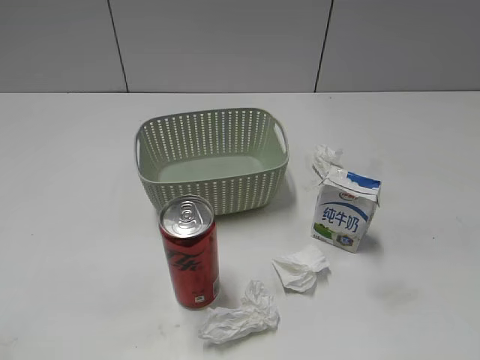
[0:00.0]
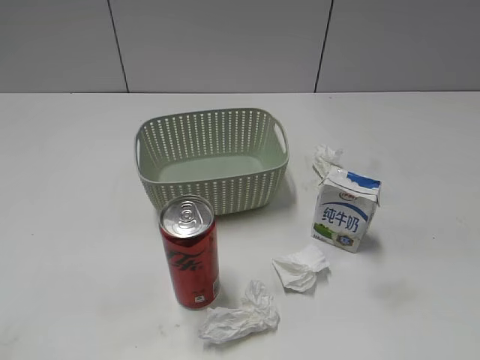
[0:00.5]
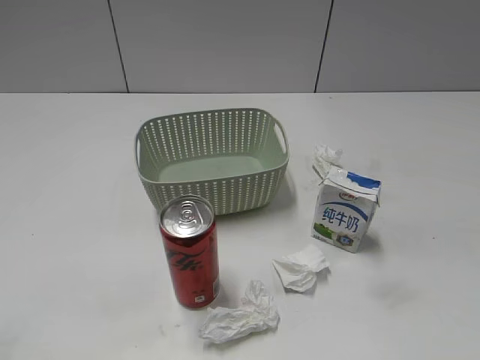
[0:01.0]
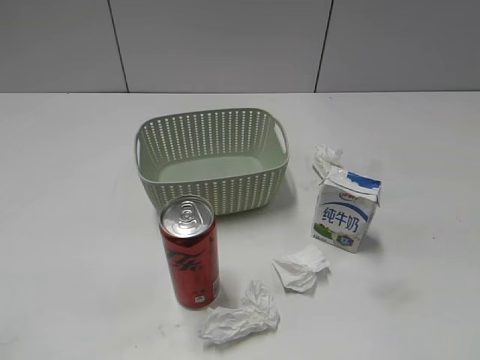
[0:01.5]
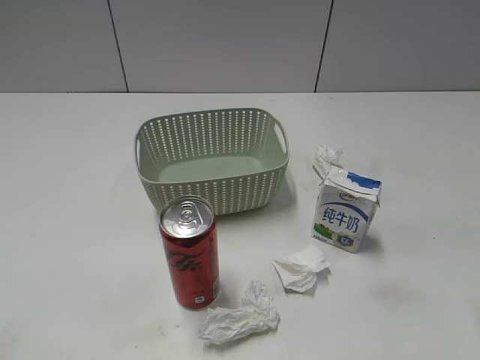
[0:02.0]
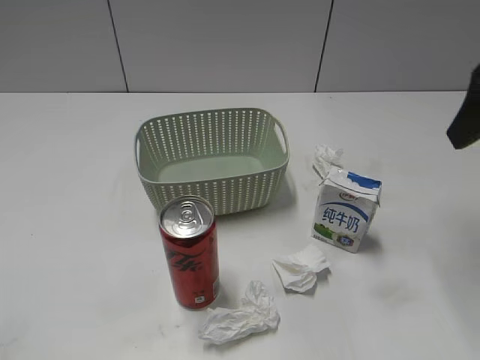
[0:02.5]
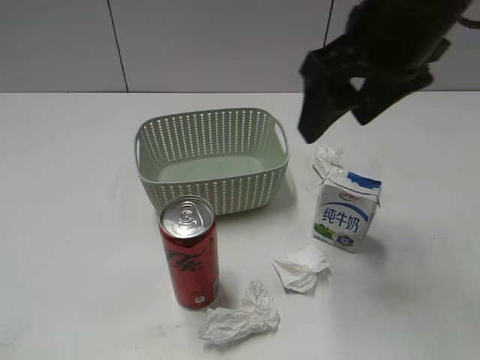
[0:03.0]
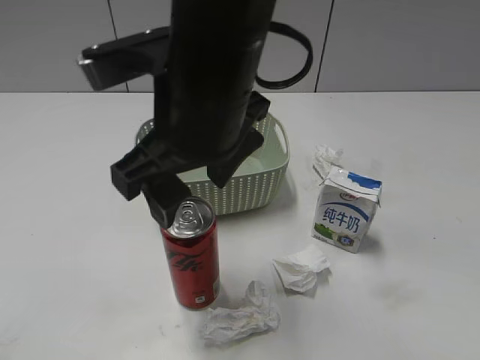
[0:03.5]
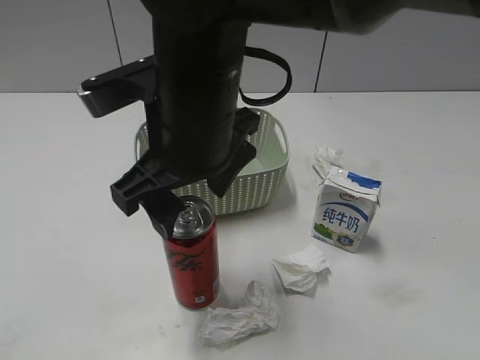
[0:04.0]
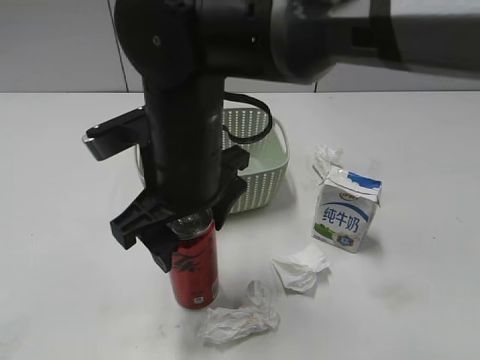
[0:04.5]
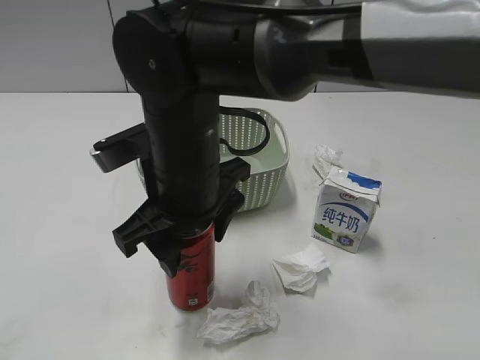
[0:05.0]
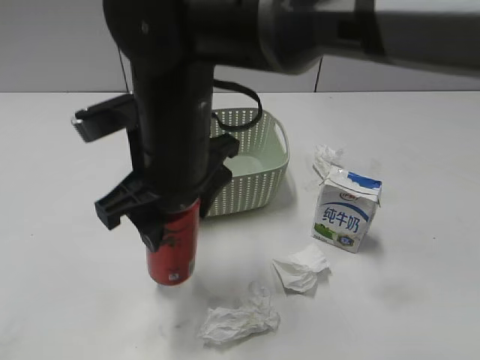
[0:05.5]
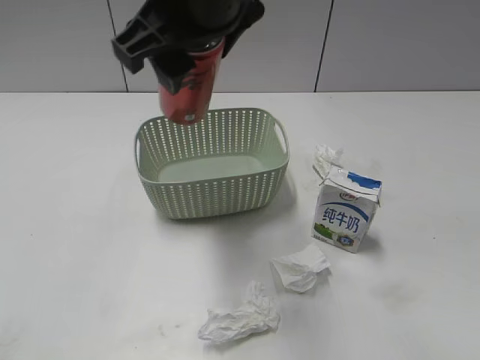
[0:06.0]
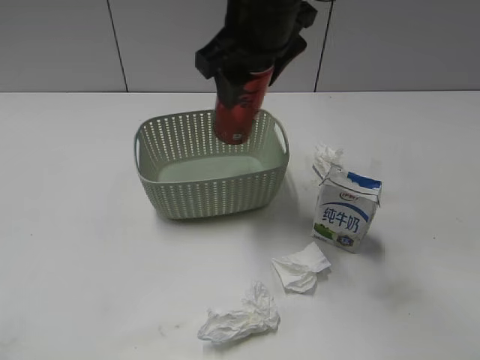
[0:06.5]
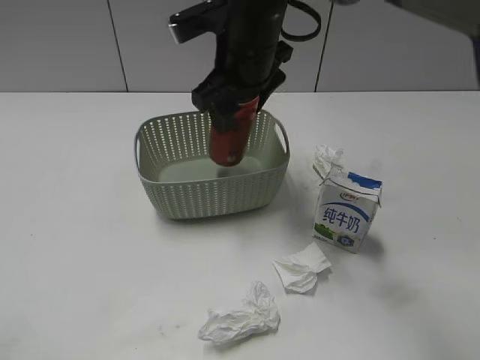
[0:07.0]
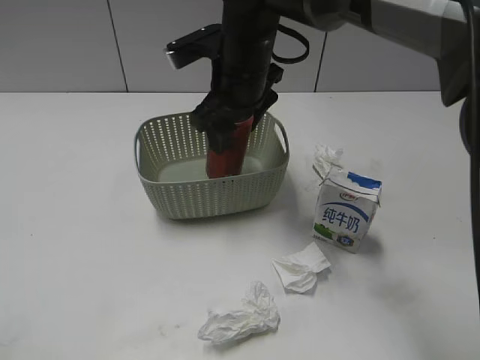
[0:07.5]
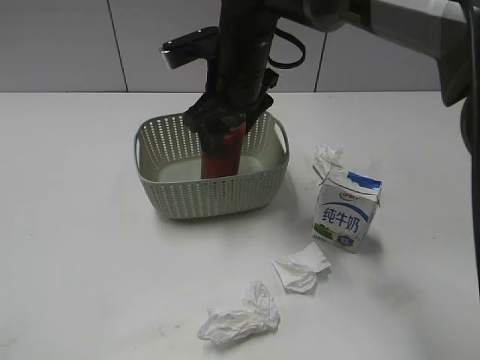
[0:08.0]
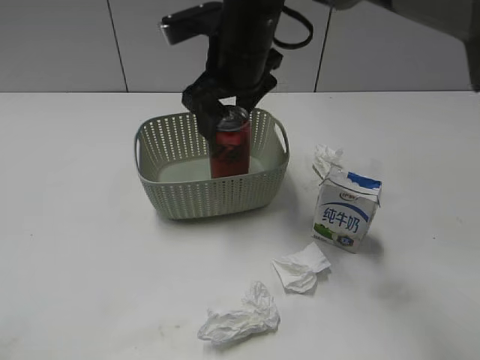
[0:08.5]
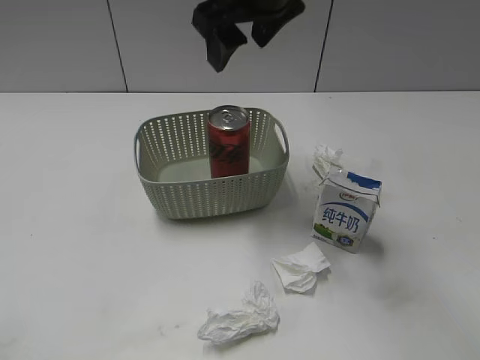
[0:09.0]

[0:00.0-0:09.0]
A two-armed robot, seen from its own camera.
Step, 0:02.5 to 0:05.0: Grasp the cola can with right gripper.
Step, 0:05.5 to 0:08.5: Place the cola can in the basket with right gripper.
0:02.0 to 0:04.5: The right gripper shifts about 35 cm to the left.
0:04.5 to 0:07.0: The right gripper moves forward, roughly 15 cm, moves about 15 cm upward and comes back, and closes up.
0:07.0 to 0:09.0: The right gripper heads upward, covering roughly 10 cm, and opens up.

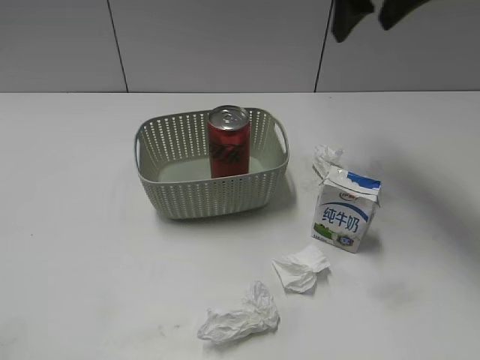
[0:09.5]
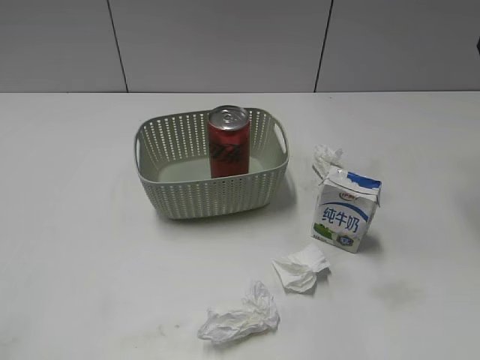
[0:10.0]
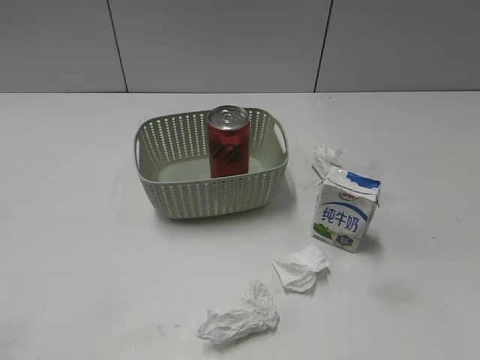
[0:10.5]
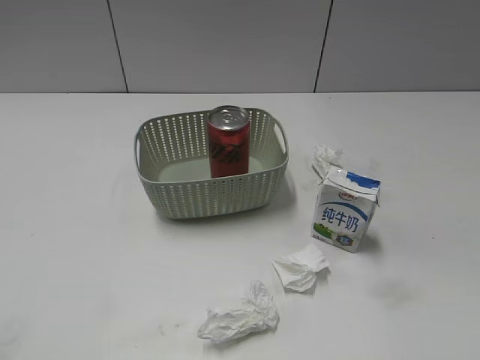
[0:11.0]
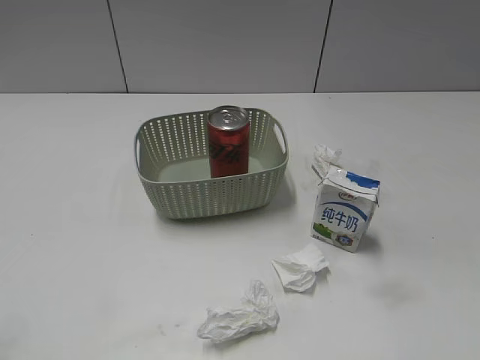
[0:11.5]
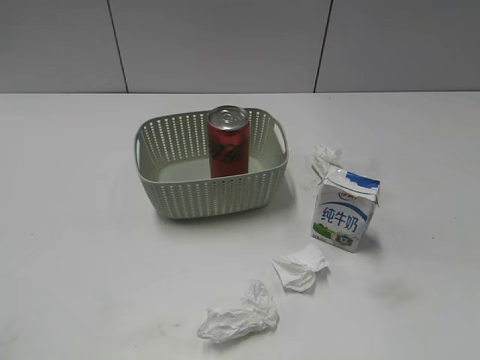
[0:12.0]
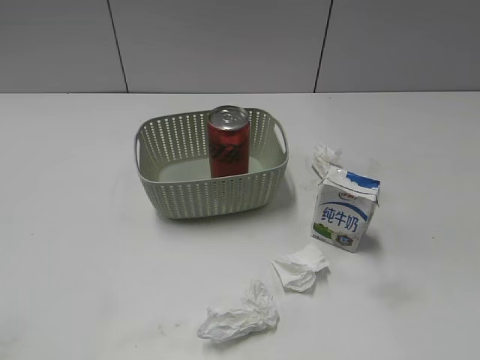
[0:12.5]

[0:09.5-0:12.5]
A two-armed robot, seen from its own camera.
0:09.5 to 0:11.0: The right gripper is displaced backward and to the right by approximately 35 cm.

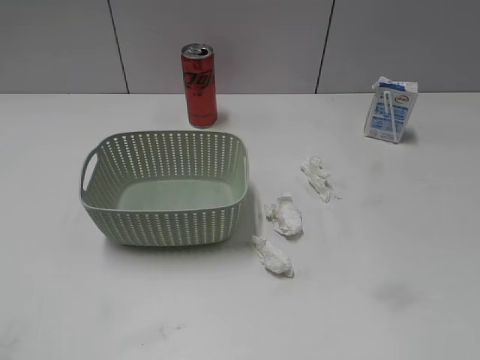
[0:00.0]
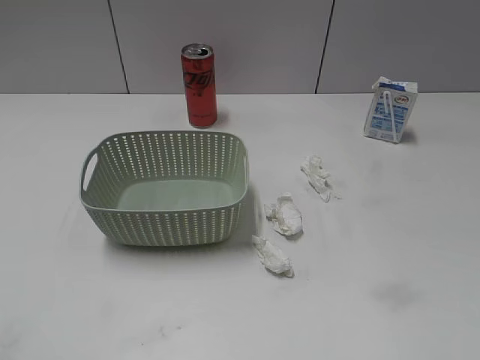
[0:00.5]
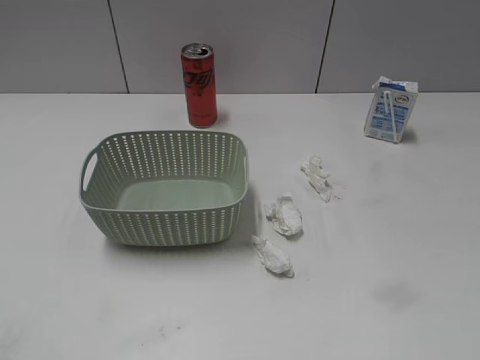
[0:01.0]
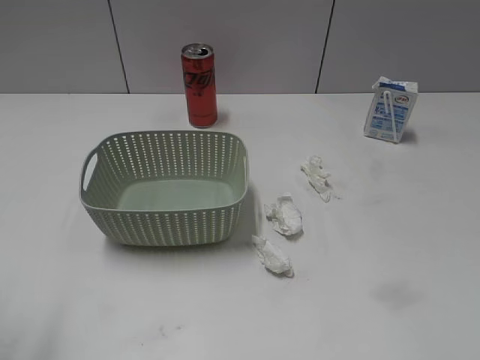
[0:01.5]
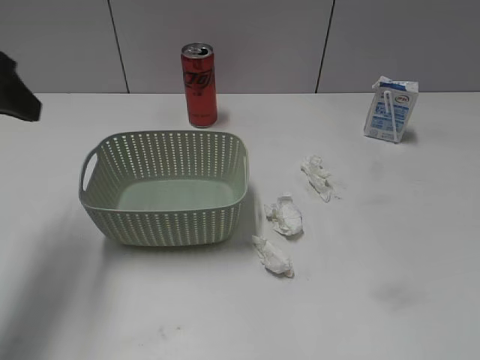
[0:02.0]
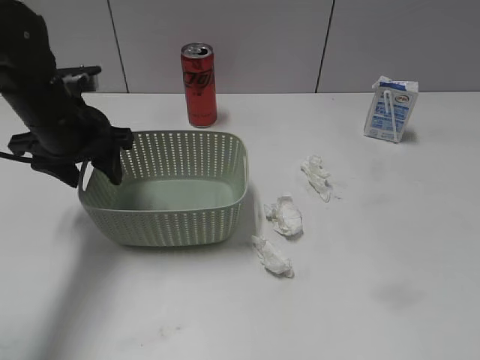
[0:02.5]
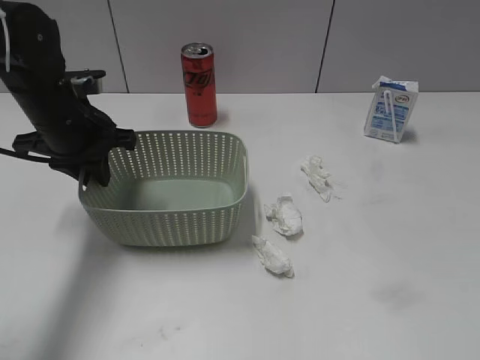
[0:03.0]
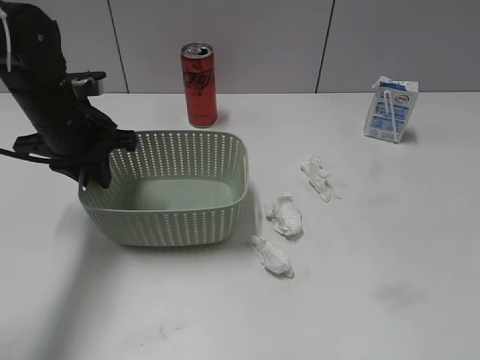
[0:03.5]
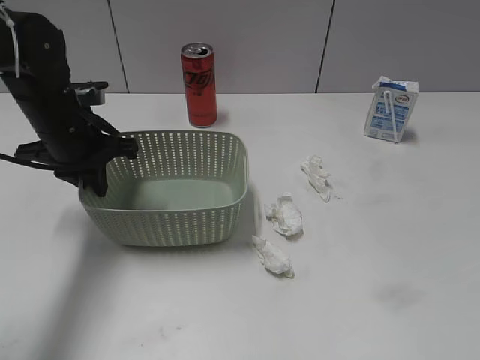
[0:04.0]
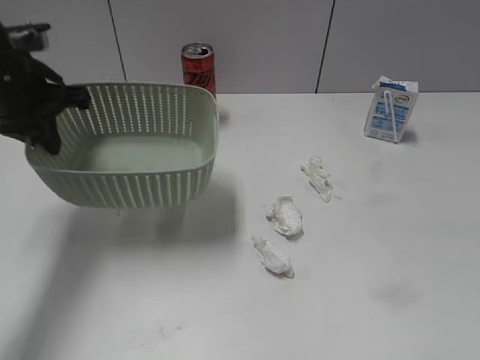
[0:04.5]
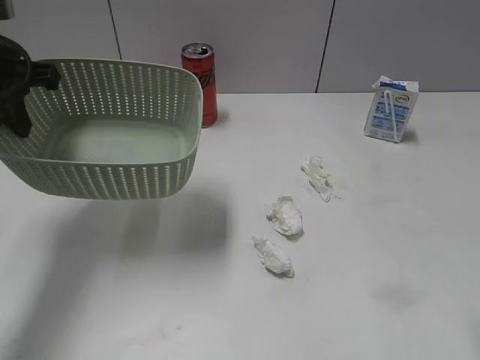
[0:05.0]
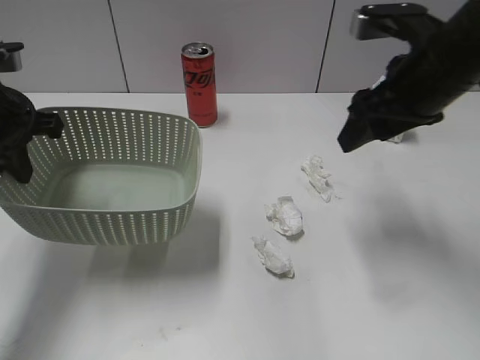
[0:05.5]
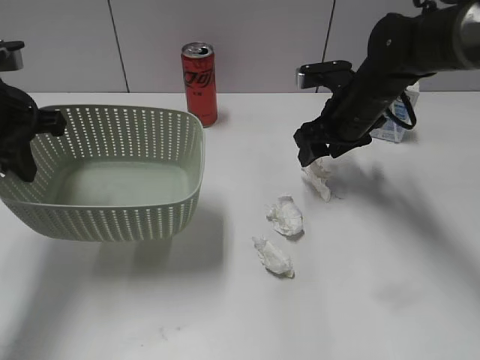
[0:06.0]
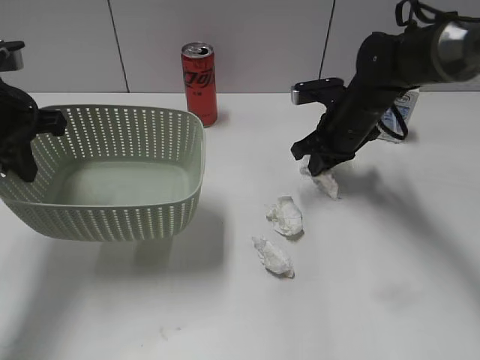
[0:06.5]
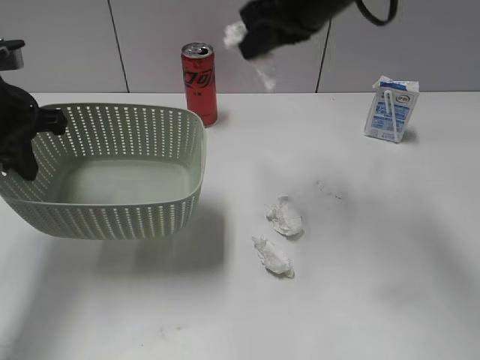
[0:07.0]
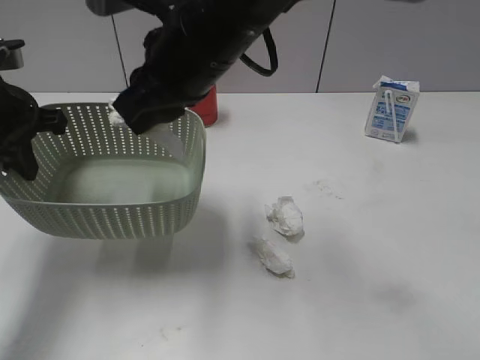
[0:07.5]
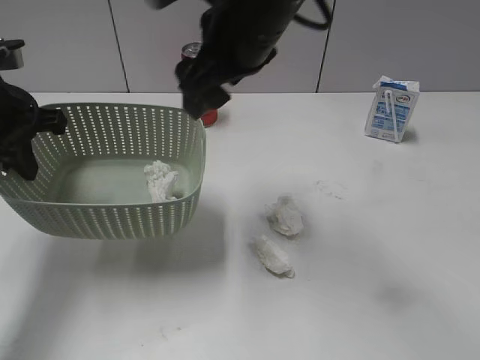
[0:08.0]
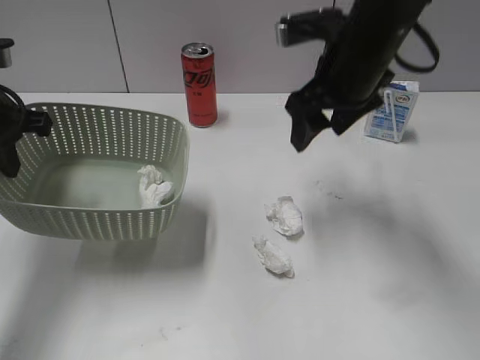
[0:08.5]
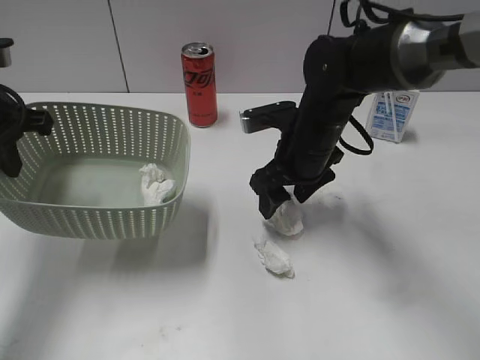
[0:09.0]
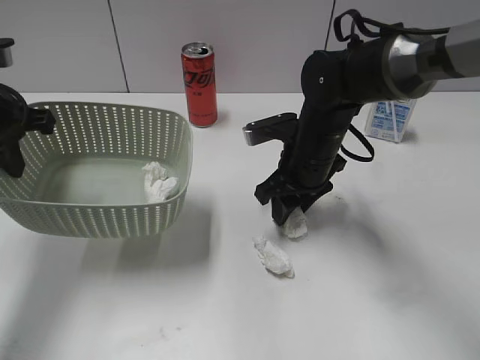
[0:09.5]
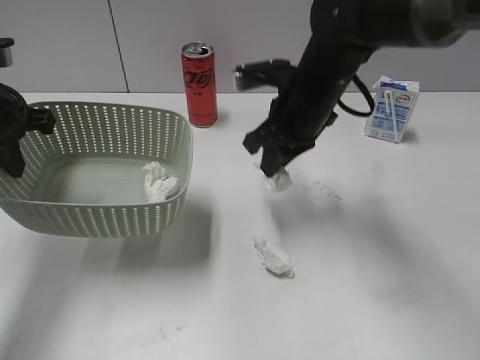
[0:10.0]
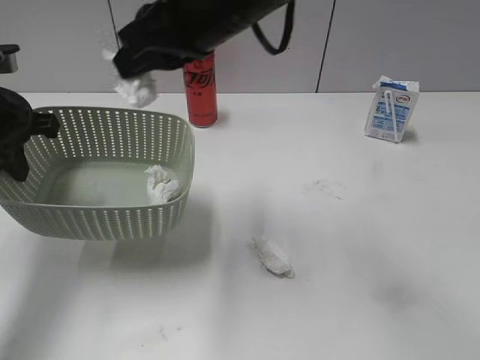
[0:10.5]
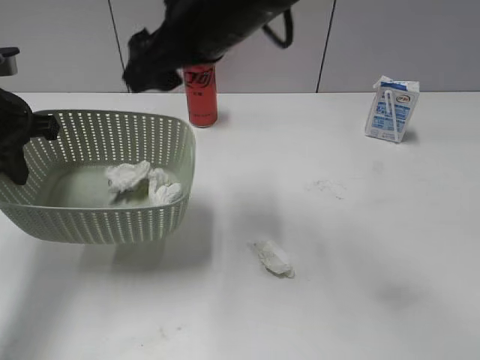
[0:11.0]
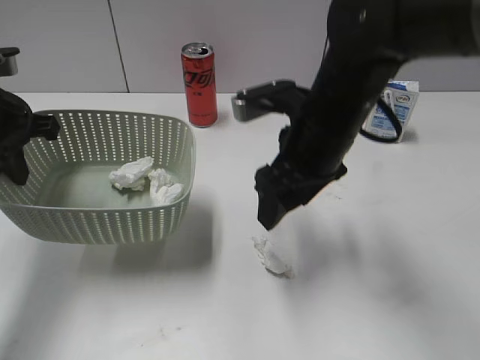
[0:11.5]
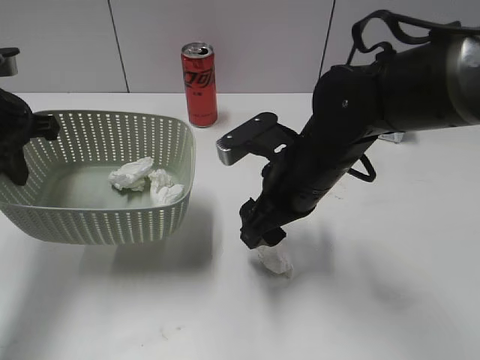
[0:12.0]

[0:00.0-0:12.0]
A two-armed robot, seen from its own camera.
Step, 0:02.0 to 0:04.0: Grasp the basket with left gripper.
Step, 0:05.0 to 0:06.5: Grasp the waste paper with right gripper.
Step, 0:07.0 to 0:07.5: Place the waste paper in the basket with right gripper.
Step, 0:08.0 to 0:10.0: Grasp the waste paper with right gripper.
Step, 0:10.5 to 0:11.0: Place the waste paper in the basket with right gripper.
0:02.0 to 0:04.0: The left gripper moves downward, forward and to the right, approximately 15 cm, and closes up.
0:04.0 to 0:06.0: The right gripper travels forward by some 40 cm; the left gripper moves upward, to the left and backward, roughly 10 cm.
0:06.0 to 0:08.0: The right gripper heads upward, to the left and backward, covering some 20 cm, and closes, then opens again.
0:08.0 to 0:10.0: The right gripper travels downward and to the right by roughly 10 cm, and closes.
0:10.0 to 0:12.0: The right gripper heads backward, covering some 10 cm, goes upward and returns, some 10 cm each way, and opens its fingers.

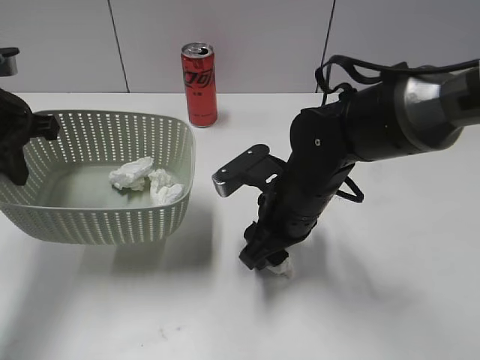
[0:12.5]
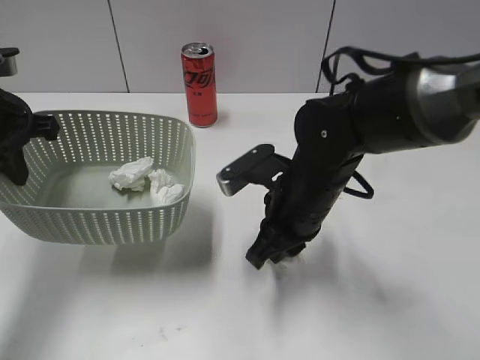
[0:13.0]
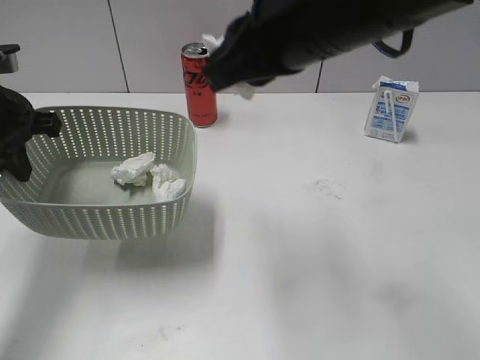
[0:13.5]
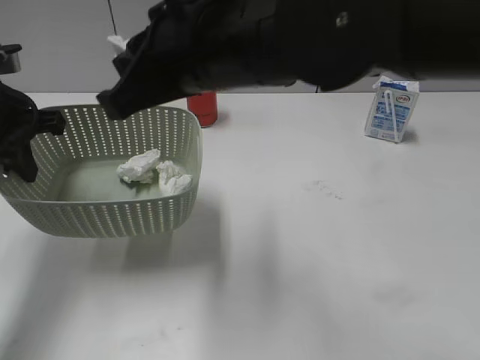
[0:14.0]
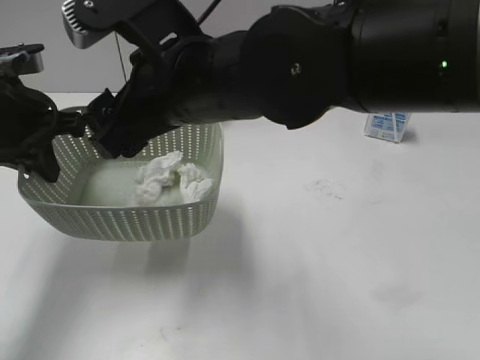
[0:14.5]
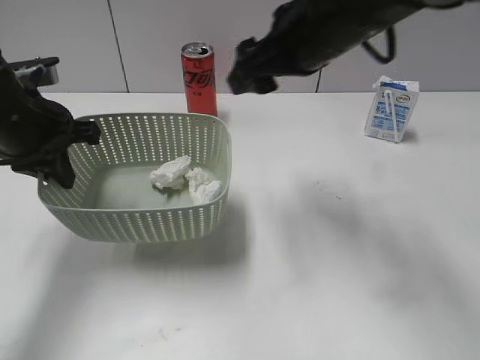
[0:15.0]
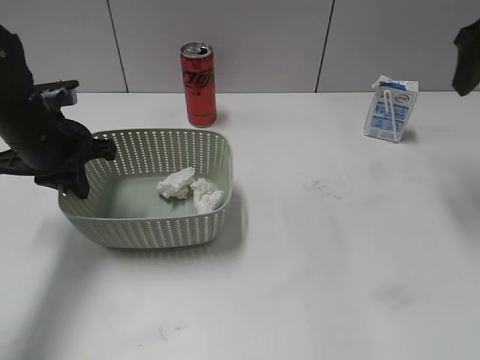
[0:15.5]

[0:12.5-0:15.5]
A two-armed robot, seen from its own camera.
Step, 0:13.5 to 0:14.5: Place the waste paper in the basket with right gripper.
0:12.5 to 0:14.0: The right gripper travels upward and to the left by about 20 cm, and closes.
0:14.0 to 0:15.5: The left gripper is displaced downward by about 5 cm. Meanwhile the right gripper is displaced to the right and forward by some 30 cm, and opens up.
